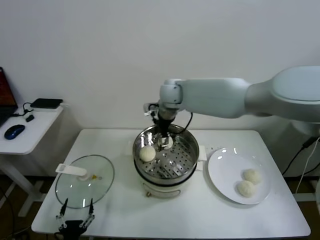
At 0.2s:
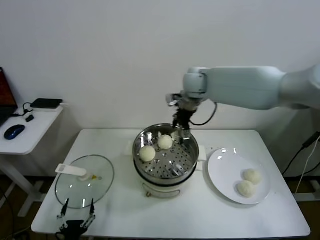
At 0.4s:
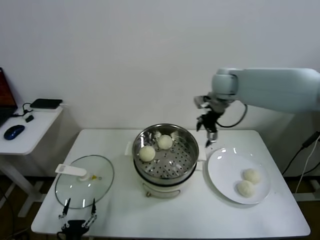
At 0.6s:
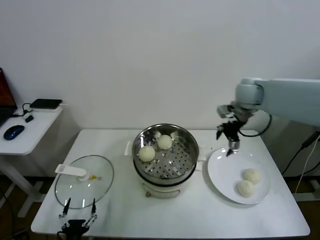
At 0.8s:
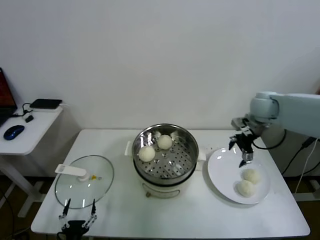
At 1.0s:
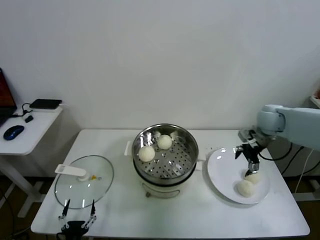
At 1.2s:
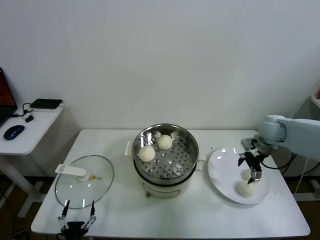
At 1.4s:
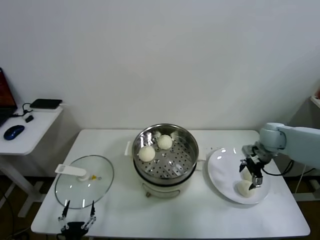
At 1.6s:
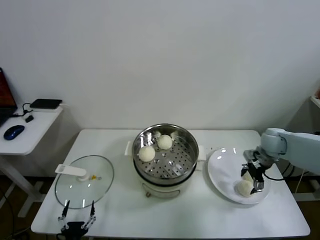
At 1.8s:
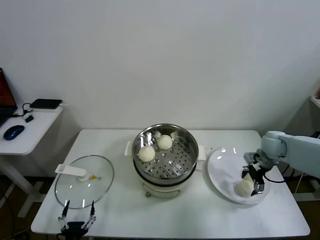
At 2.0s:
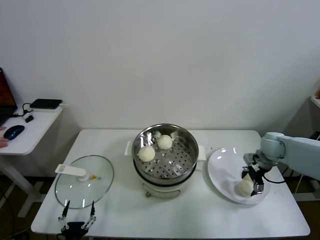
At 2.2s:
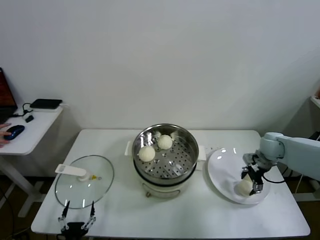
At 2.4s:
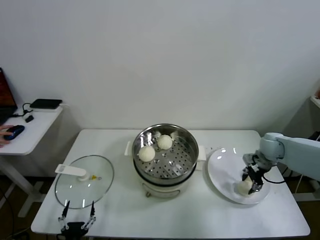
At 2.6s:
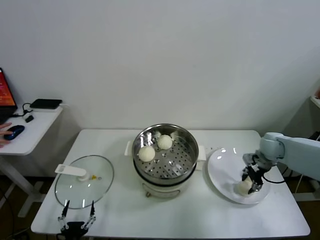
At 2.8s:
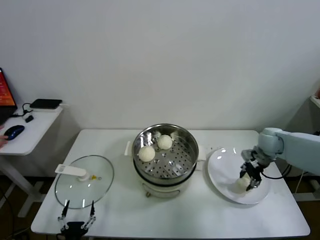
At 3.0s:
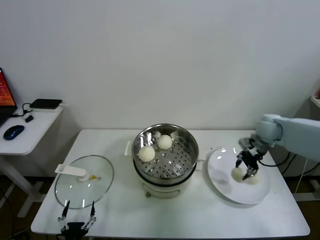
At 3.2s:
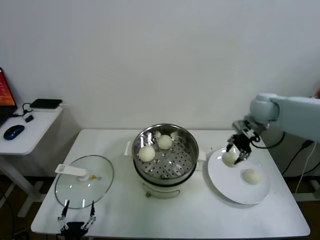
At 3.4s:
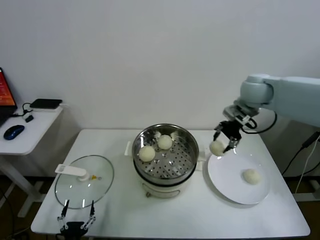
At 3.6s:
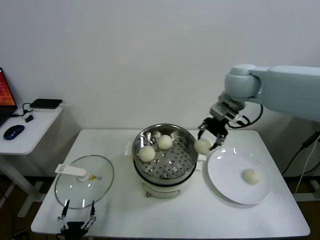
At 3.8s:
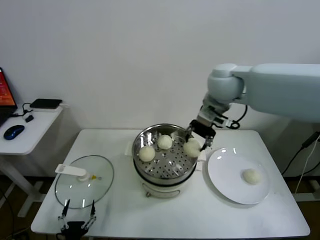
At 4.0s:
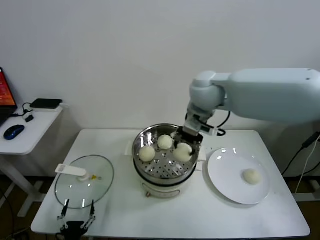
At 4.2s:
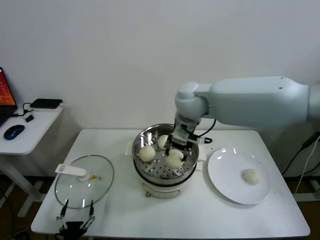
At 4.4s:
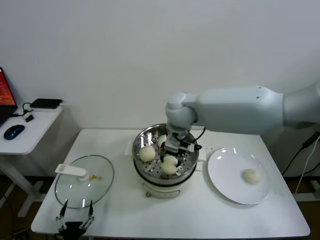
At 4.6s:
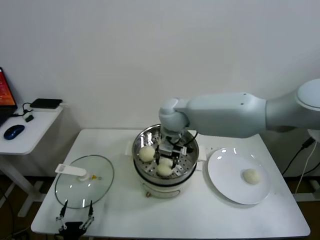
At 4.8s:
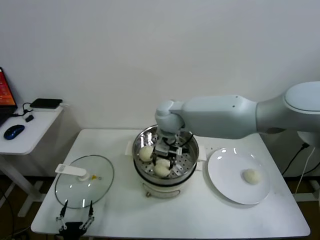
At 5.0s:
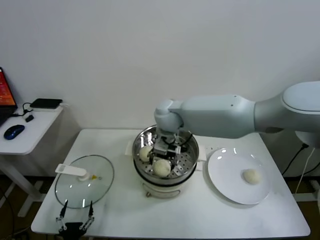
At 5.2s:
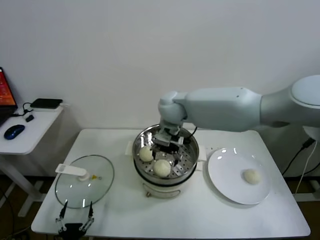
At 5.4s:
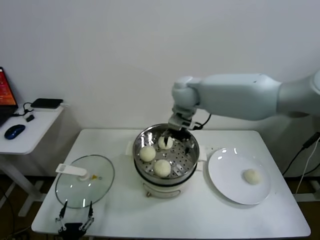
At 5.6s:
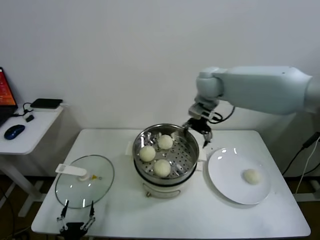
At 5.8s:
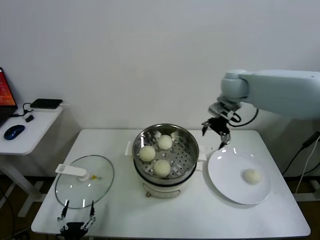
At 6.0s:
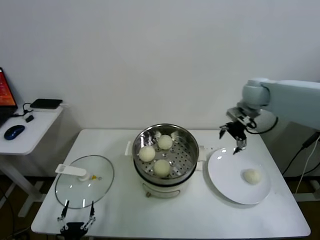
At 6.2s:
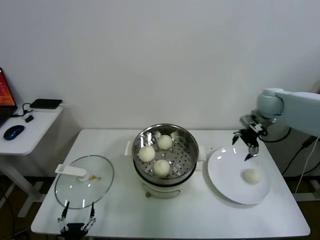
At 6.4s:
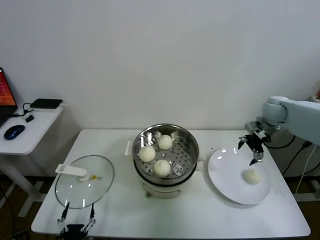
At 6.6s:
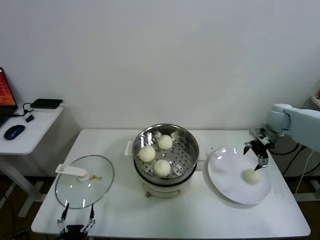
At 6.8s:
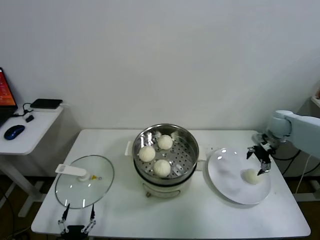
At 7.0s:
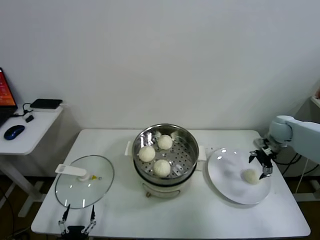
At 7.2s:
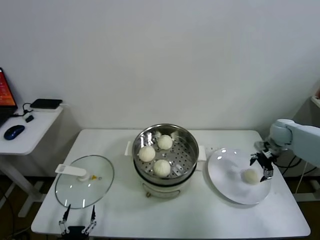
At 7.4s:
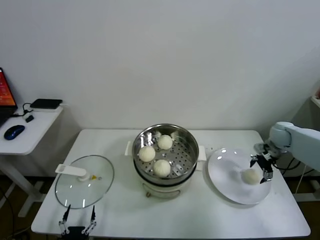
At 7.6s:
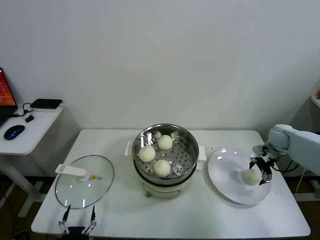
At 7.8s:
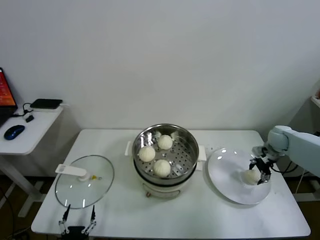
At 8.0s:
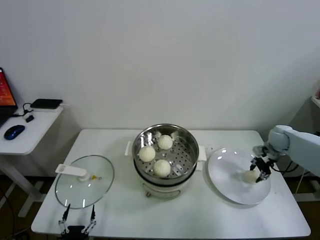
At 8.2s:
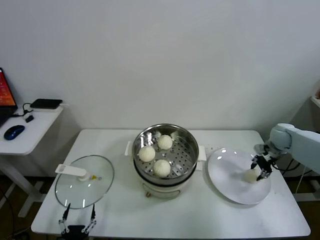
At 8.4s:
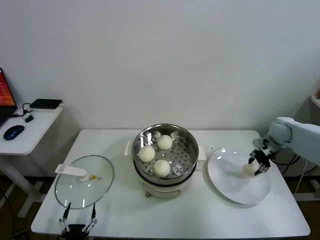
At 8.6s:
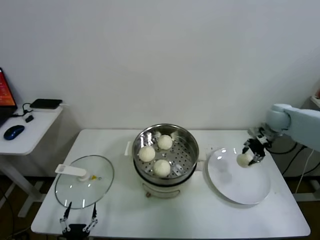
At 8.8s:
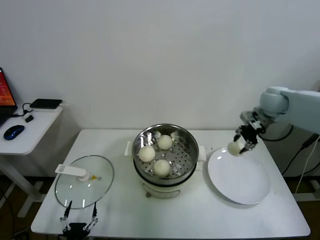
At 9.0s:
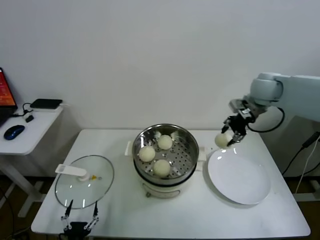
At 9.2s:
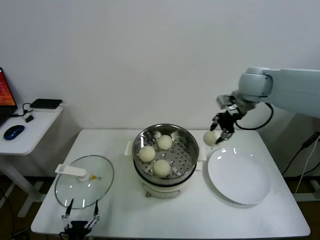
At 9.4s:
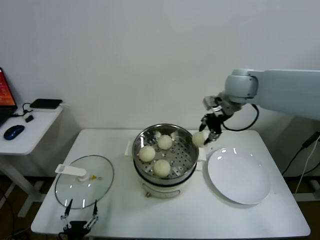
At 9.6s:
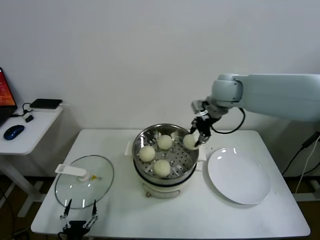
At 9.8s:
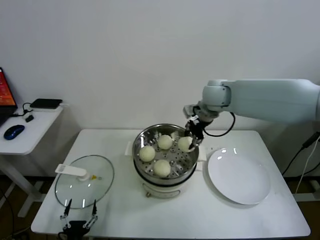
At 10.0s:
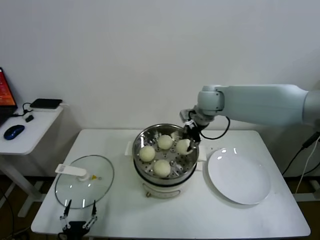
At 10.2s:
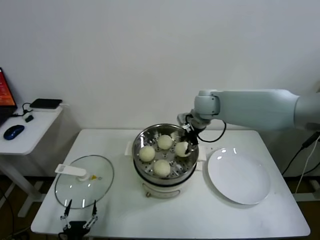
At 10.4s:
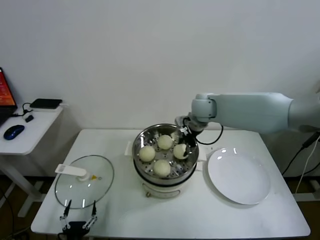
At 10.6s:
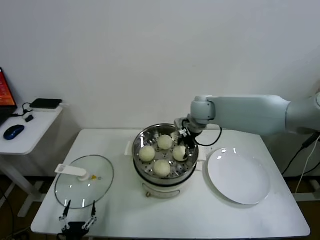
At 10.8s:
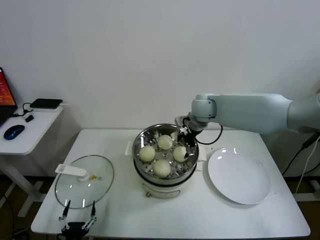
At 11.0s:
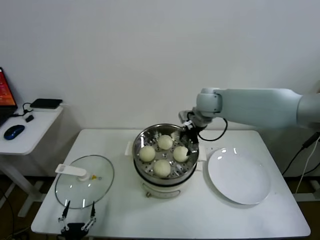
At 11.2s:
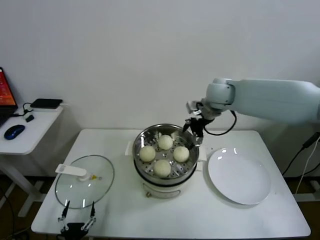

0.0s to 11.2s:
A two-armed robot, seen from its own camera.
Task of the whole recording: take steamed baozi put them in steamer.
Step, 0.0s to 2.4s: Grasp the baozi in the plate with right gripper.
Step, 2.6s to 5.0s: Place the baozi on the steamer with right gripper.
Step, 5.2s to 8.0s: Grasp the baozi in the plate with right gripper.
Step, 8.2s to 10.6s: Place the baozi on the steamer with right gripper.
0.0s to 1.6s: The right gripper moves to the right and downward, approximately 40 cm.
1.6s to 3.2s: The right gripper moves upward and to the left, roughly 15 cm, and closes.
3.2s to 4.8s: The right gripper is displaced to the left by approximately 30 cm.
4.8s to 6.4s: The right gripper travels to the right by some 40 cm, and opens its fingers.
6.4s to 8.0s: The right gripper travels downward and to the right by approximately 15 cm, and closes its fingers.
8.0s to 9.6s: The right gripper is displaced to the left and upward by approximately 35 cm.
9.6s to 11.2s: The right gripper opens.

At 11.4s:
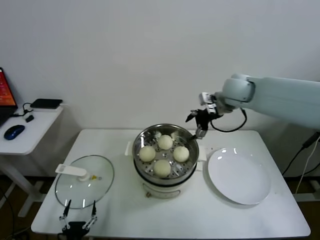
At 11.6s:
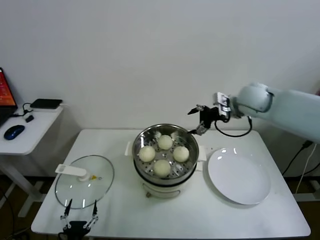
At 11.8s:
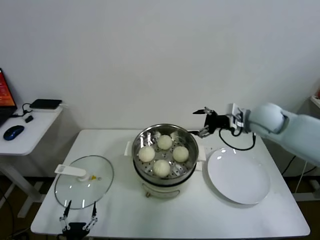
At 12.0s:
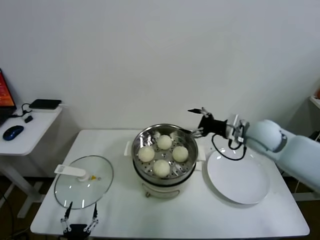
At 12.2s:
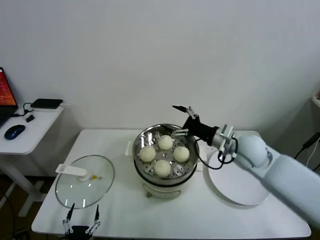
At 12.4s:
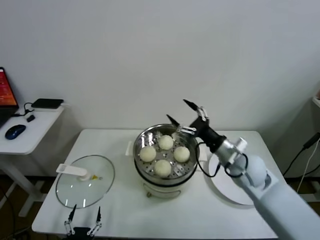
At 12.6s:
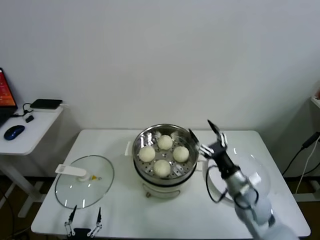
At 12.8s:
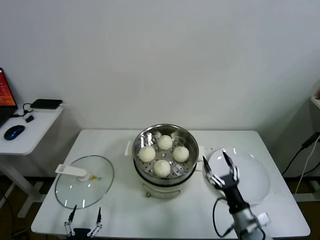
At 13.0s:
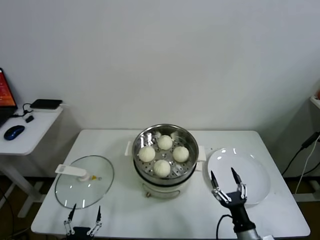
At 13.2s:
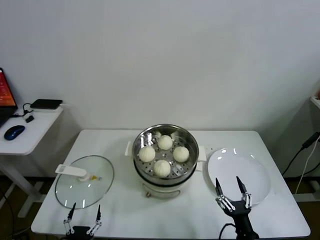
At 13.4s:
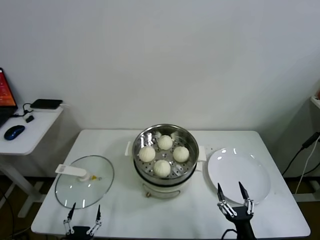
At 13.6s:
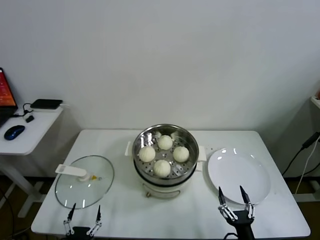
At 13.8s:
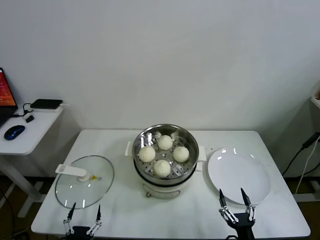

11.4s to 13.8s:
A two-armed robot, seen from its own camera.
Task of the whole recording: take steamed baozi put them in steamer.
11.4s to 12.6s: The right gripper moves downward and backward, approximately 30 cm.
12.6s to 13.8s: The right gripper heads backward and downward, covering about 25 cm.

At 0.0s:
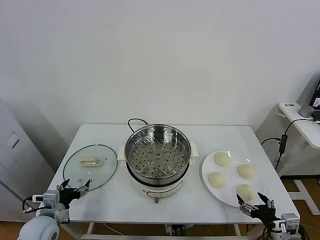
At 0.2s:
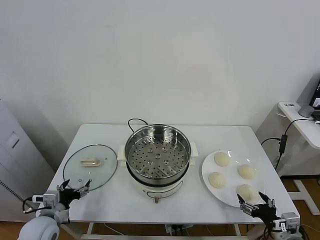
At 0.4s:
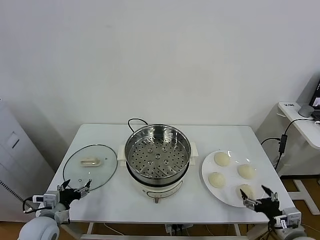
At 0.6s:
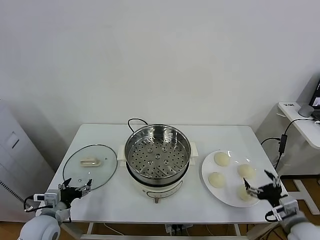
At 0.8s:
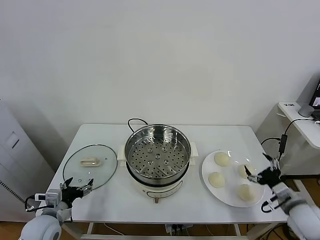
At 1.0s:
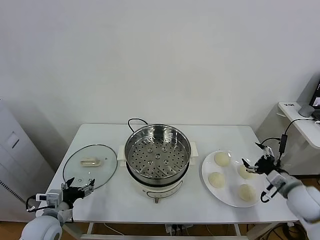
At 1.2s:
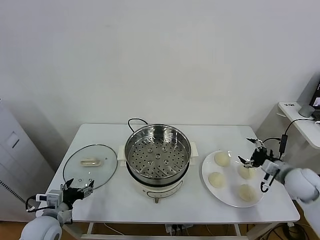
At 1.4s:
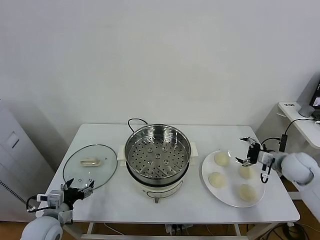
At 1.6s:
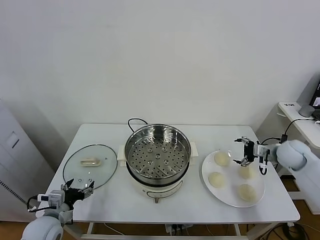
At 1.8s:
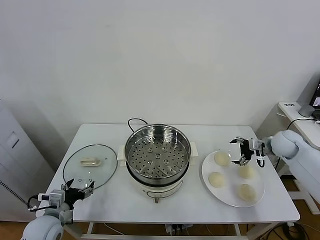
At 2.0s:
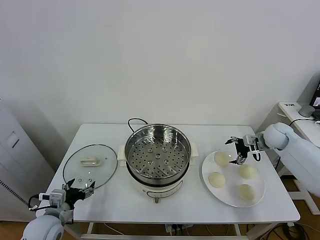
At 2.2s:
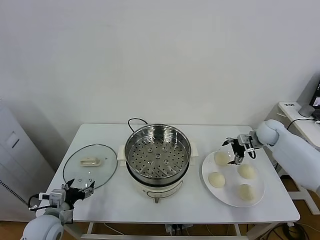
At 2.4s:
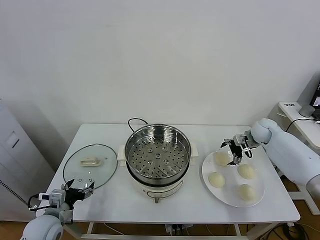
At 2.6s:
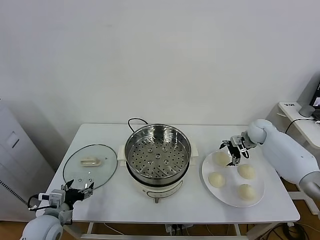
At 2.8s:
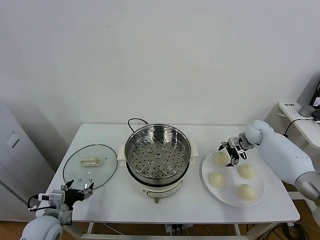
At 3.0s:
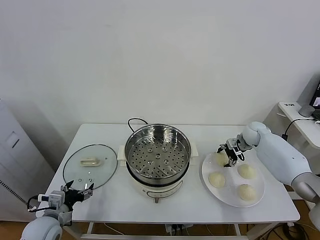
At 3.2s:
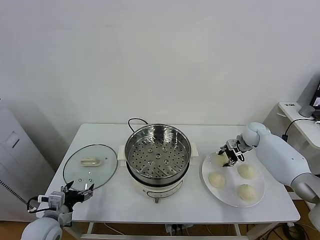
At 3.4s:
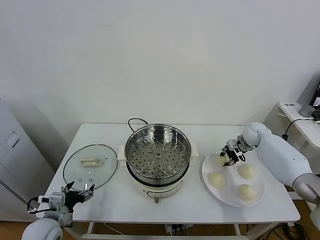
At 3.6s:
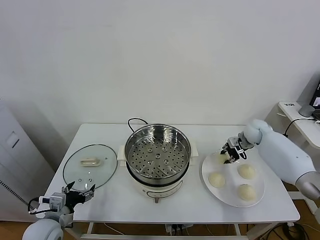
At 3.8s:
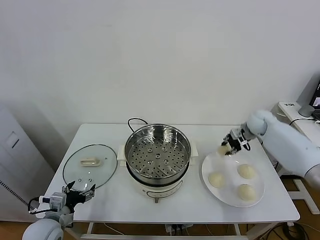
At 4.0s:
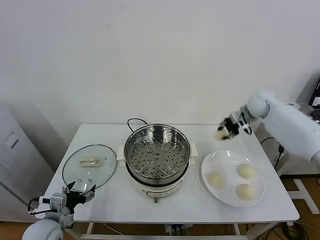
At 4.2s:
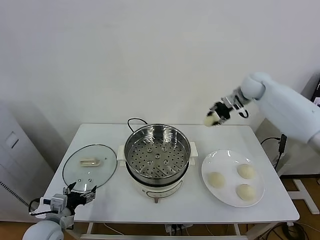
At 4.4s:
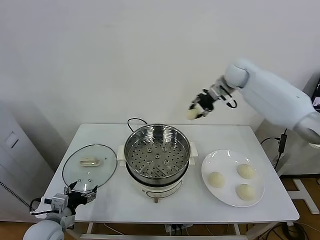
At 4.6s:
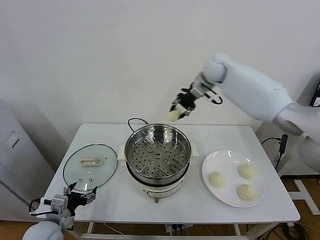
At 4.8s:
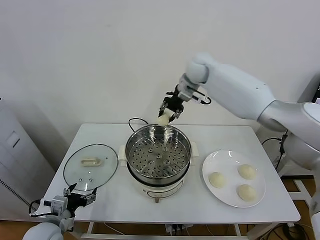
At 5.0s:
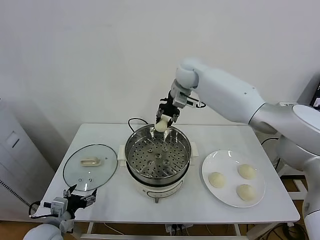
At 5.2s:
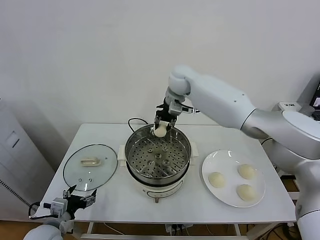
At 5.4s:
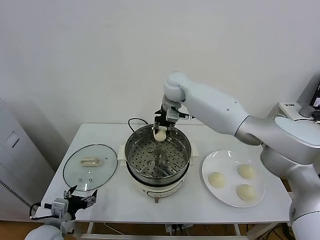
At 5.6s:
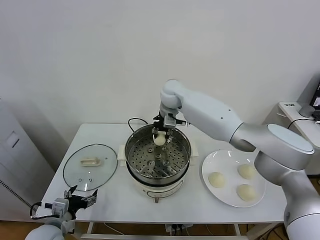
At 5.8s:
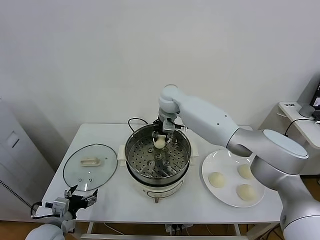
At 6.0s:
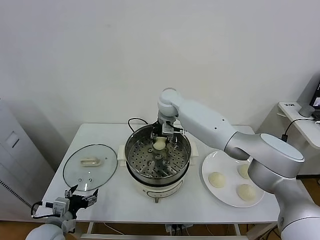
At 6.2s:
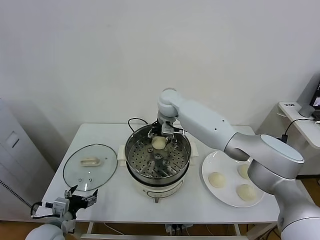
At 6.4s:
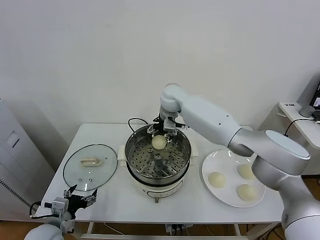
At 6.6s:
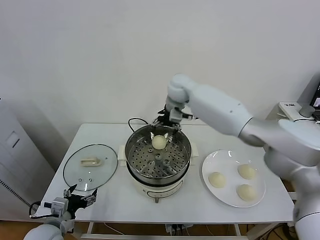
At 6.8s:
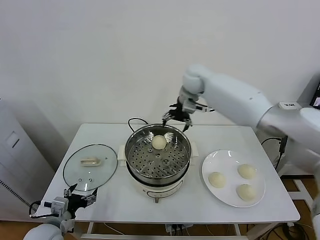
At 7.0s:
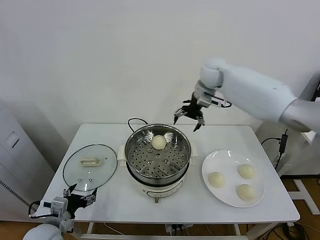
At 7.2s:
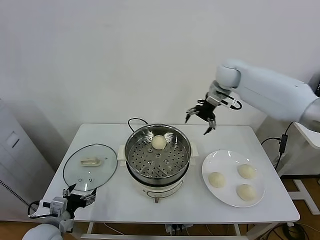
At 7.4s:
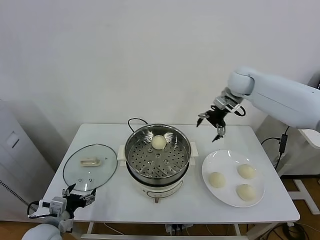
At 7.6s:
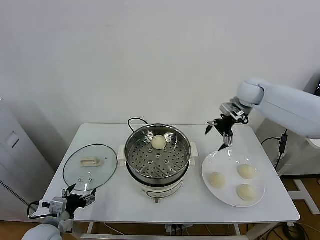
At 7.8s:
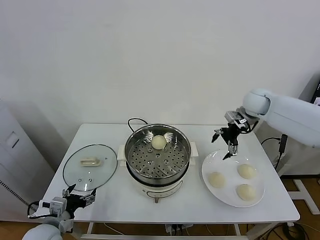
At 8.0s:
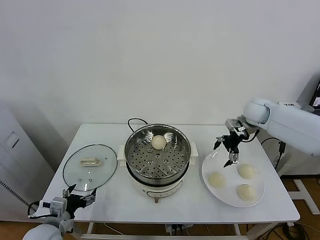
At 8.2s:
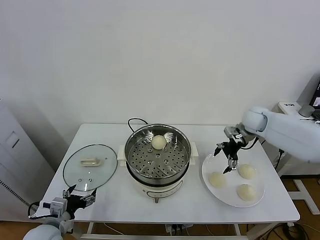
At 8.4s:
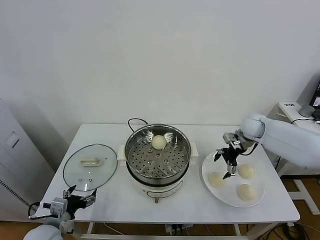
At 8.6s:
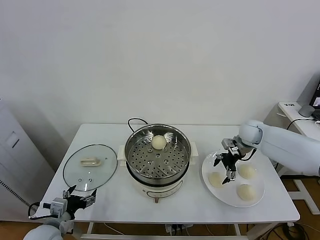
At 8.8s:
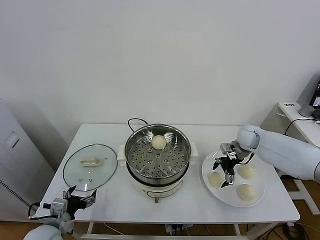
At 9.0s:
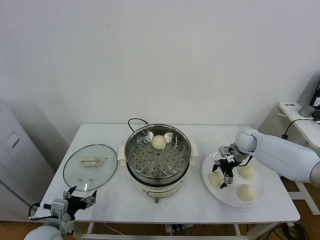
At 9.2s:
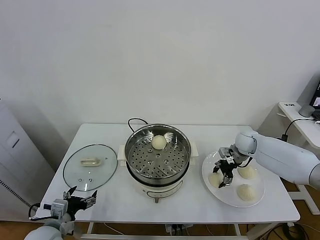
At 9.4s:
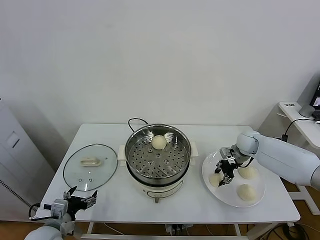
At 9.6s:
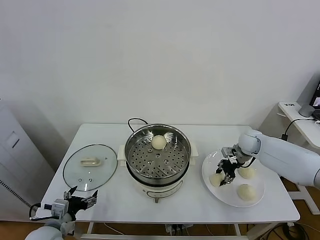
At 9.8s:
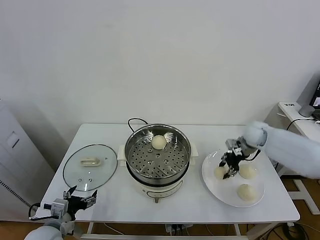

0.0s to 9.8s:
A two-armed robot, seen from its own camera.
Task of the whole recording: take steamed baozi put them in steamer.
Step, 0.0s to 3.2s: Grasp the baozi in the plate with right gripper.
Step, 3.4s to 6.2s: Place the baozi on the steamer with right gripper.
Step, 6.4s to 9.2s: Grasp the baozi in the plate with right gripper.
1.4s to 2.8s: The right gripper goes about 15 cm forward.
2.8s to 4.2s: The right gripper travels upward and to the left by roughly 25 cm, and closes up.
4.2s to 5.6s: The right gripper heads to the left, covering about 25 cm.
5.6s to 7.0s: The right gripper travels to the right and upward by about 20 cm, and opens up.
7.0s to 8.4s: The right gripper is displaced downward and to the right by some 25 cm.
8.4s to 9.8s: The right gripper travels downward and back again, approximately 5 cm each way, and closes up.
